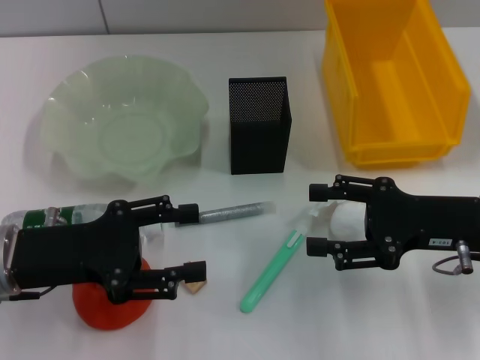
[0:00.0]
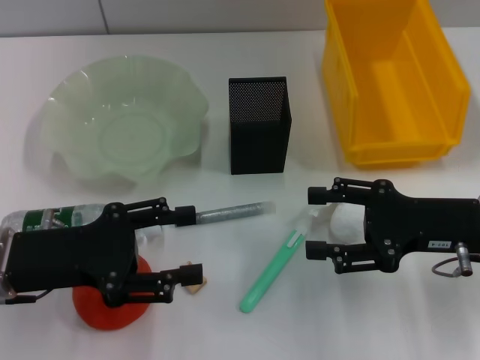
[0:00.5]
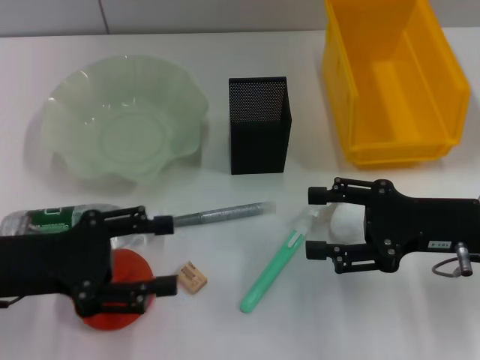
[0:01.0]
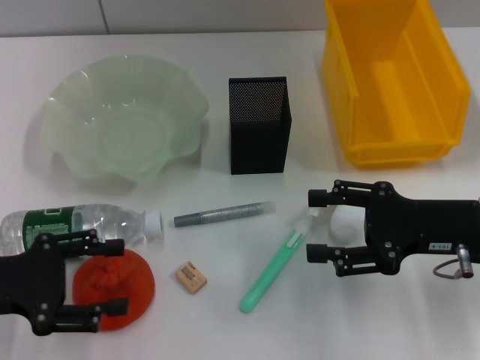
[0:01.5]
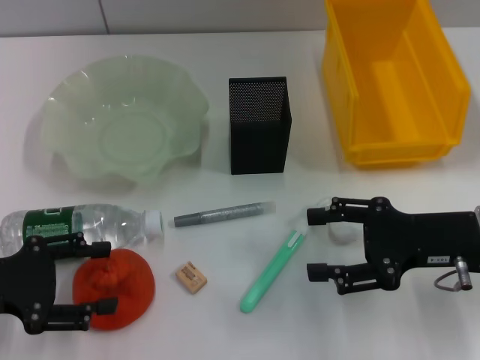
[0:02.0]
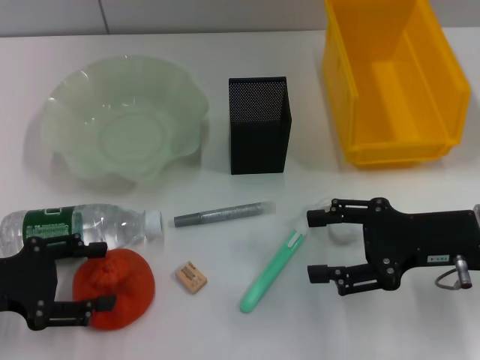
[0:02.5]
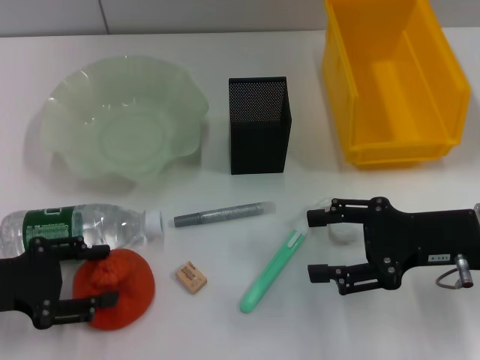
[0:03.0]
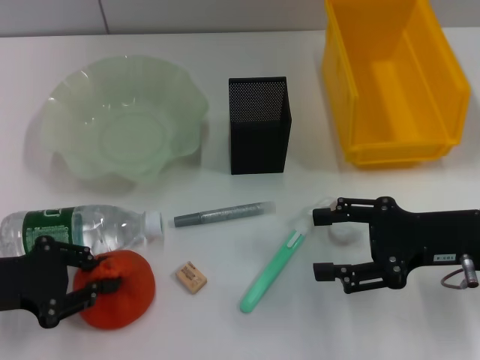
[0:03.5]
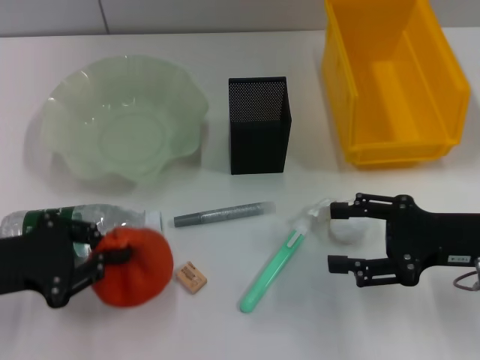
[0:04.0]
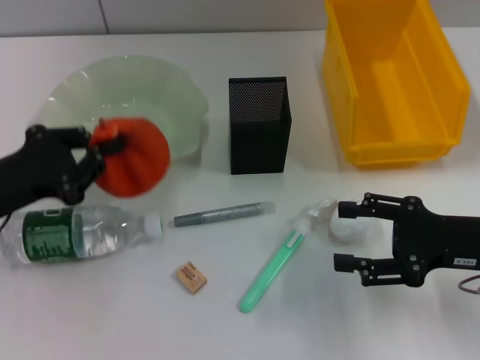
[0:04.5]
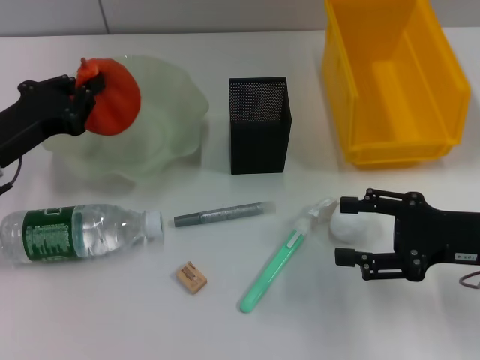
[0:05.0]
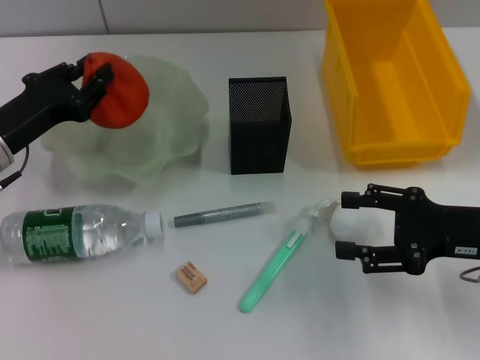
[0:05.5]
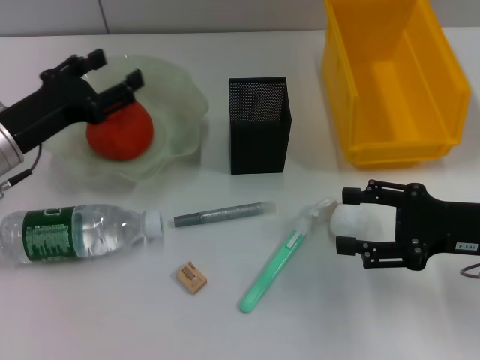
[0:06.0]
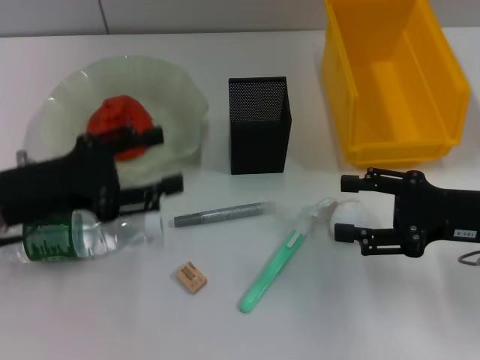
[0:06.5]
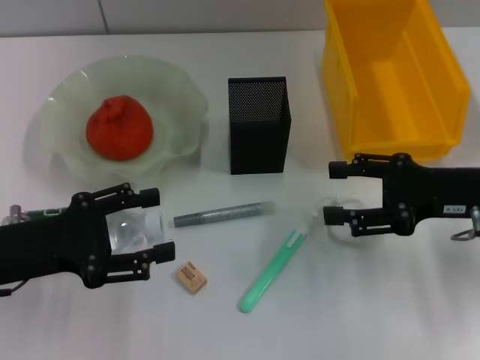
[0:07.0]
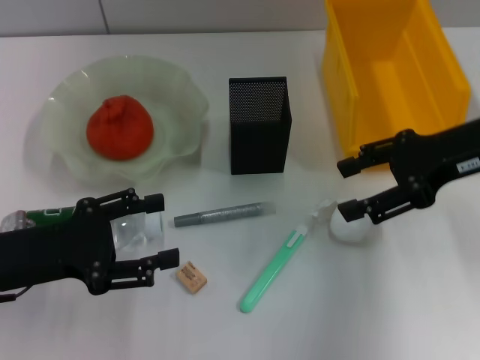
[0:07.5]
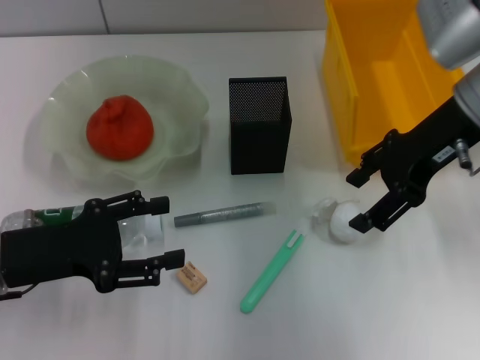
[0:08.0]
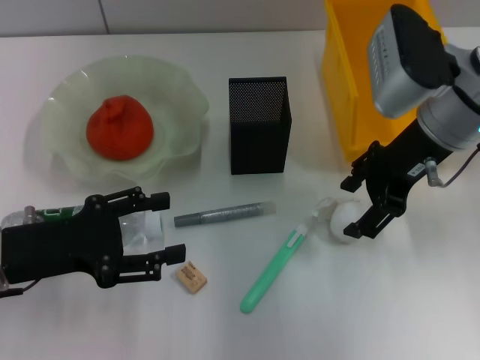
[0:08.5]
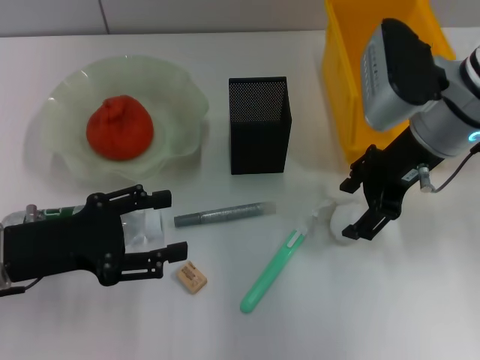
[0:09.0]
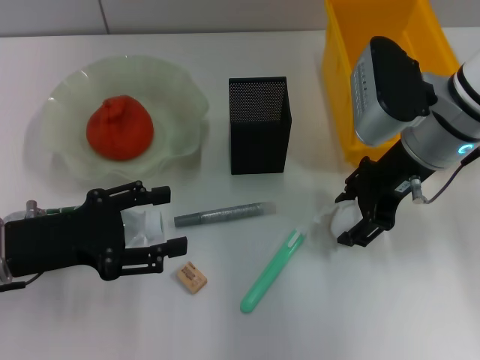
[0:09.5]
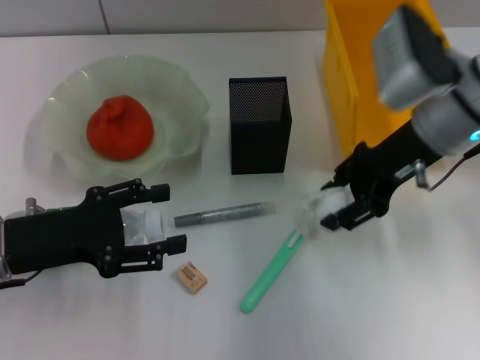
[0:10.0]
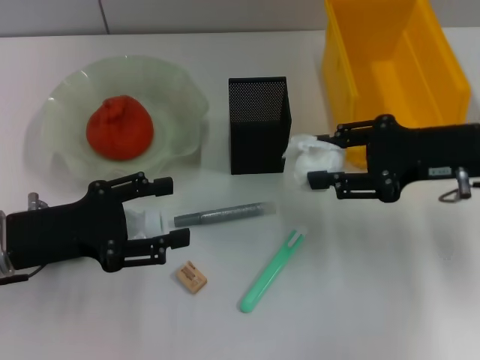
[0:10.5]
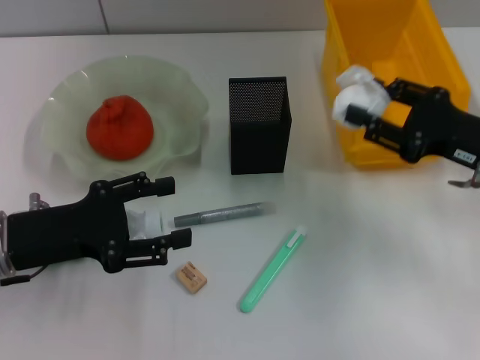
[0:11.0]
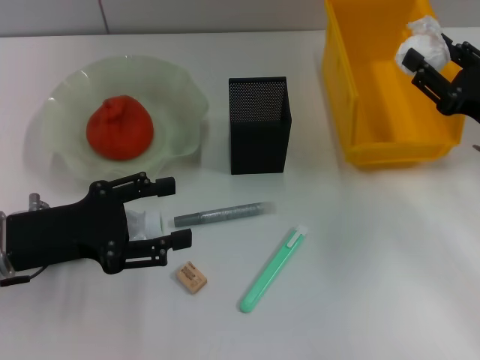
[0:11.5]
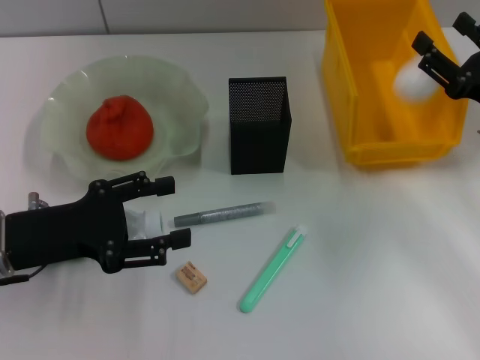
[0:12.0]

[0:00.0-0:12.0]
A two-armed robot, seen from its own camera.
Step, 0:00.0 to 0:03.5: Grab the orange with the left hand.
Step, 0:04.0 to 0:06.0: Place the orange into the fruit bowl with the left hand.
Step, 0:06.5 to 0:09.5: Grab the paper ball with the right hand.
0:00.0 to 0:02.0: The left gripper travels to the left by roughly 5 cm.
0:02.0 to 0:04.0: The left gripper closes.
0:04.0 to 0:06.0: The left gripper moves forward, roughly 10 cm, and opens its fingers.
0:06.0 to 0:08.0: The right gripper moves upward, forward and to the left, approximately 15 cm. Meanwhile the left gripper moves backward, some 10 cm, and opens its fingers.
0:08.0 to 0:10.0: The grippers make only small movements.
0:10.0 to 0:12.0: The right gripper shifts roughly 15 cm to the right, downward and backward.

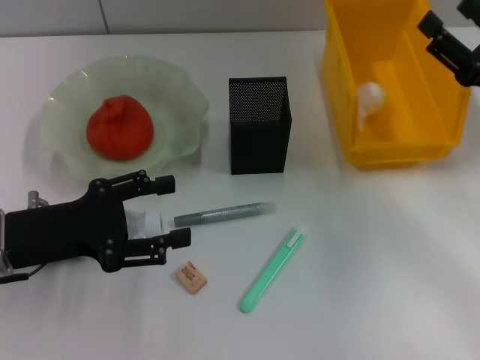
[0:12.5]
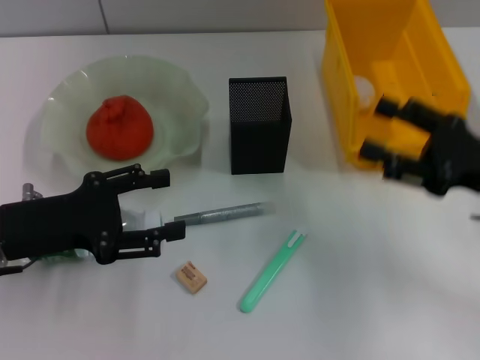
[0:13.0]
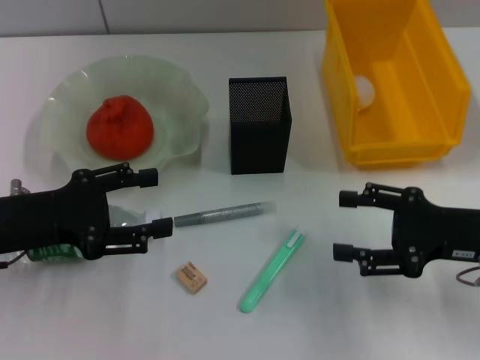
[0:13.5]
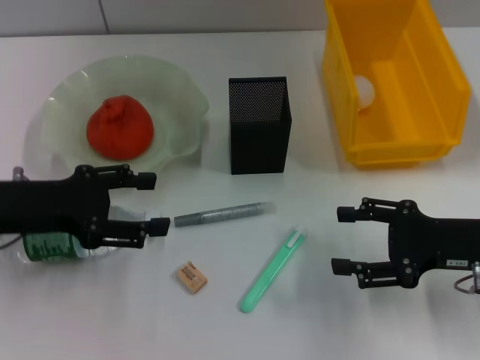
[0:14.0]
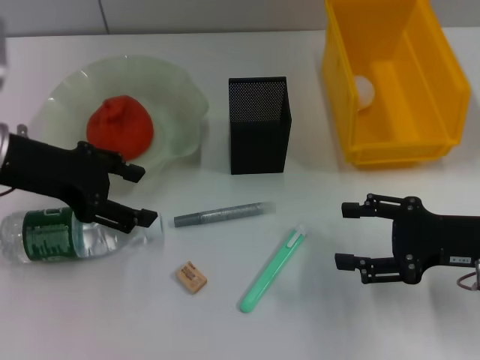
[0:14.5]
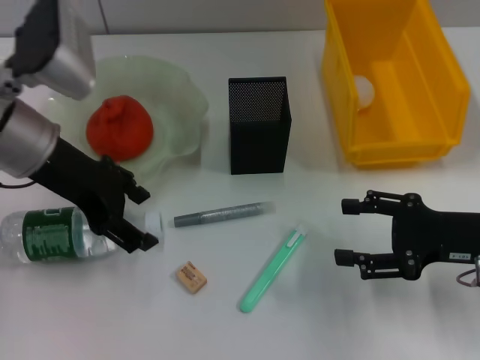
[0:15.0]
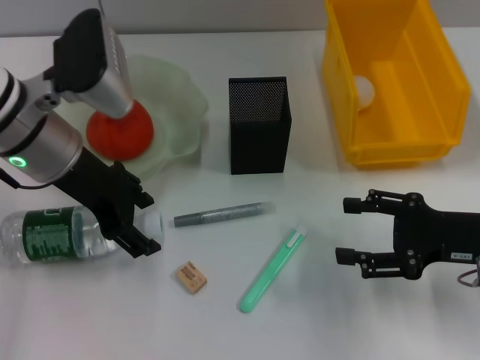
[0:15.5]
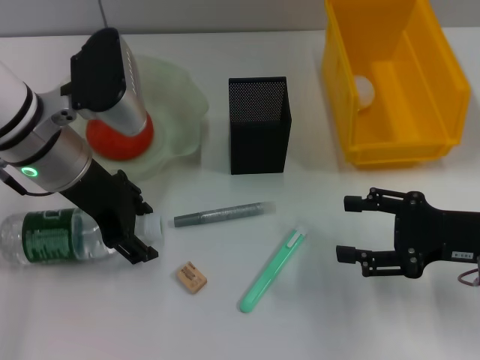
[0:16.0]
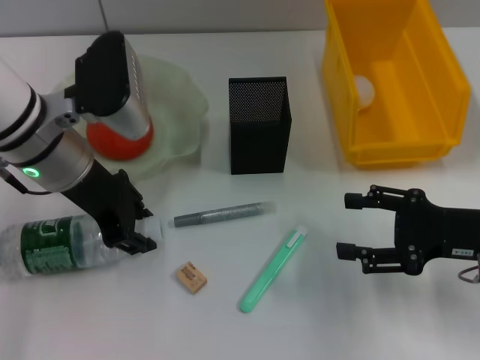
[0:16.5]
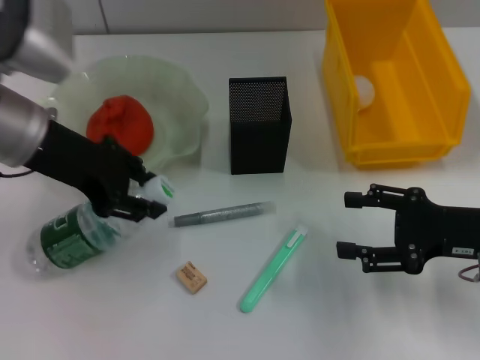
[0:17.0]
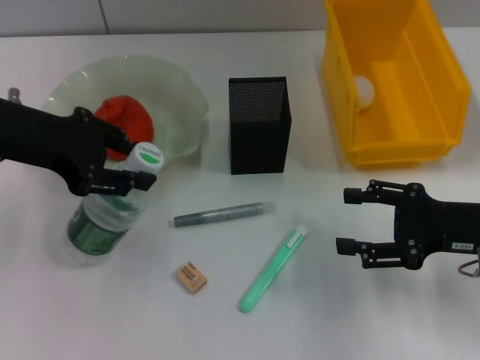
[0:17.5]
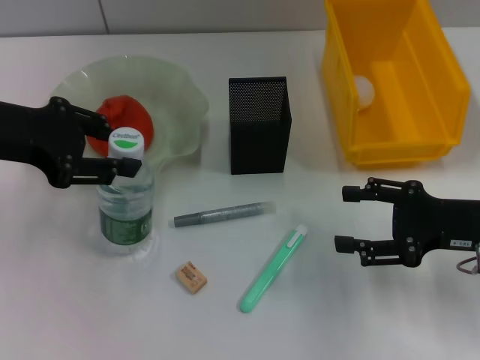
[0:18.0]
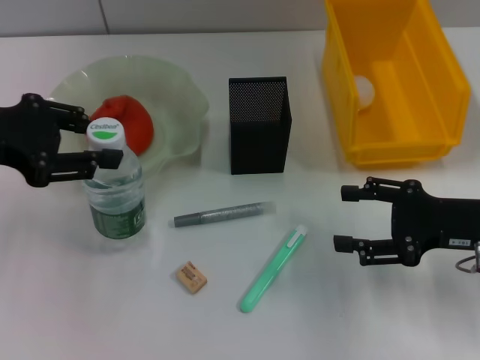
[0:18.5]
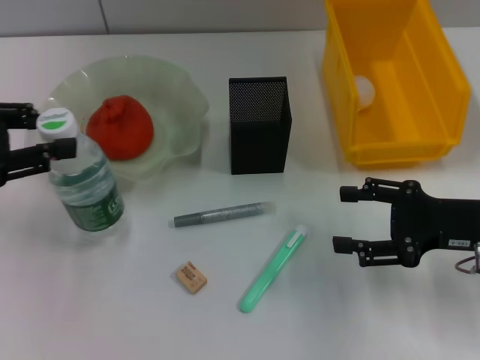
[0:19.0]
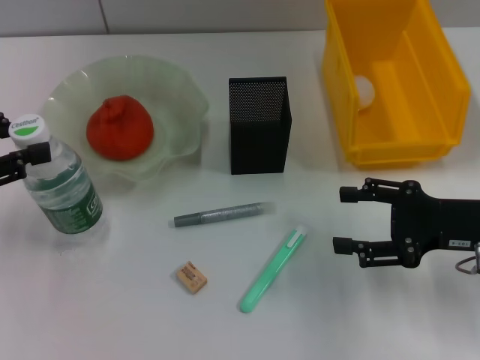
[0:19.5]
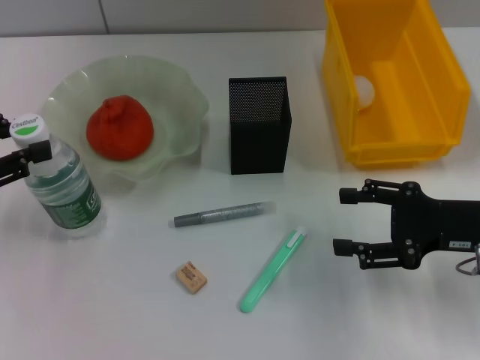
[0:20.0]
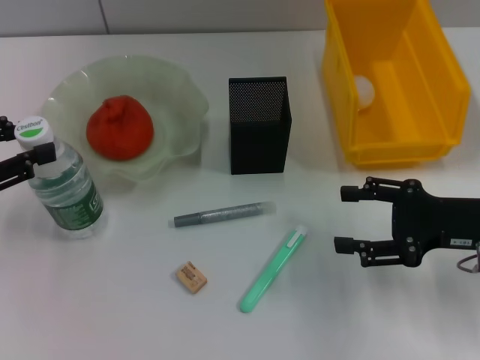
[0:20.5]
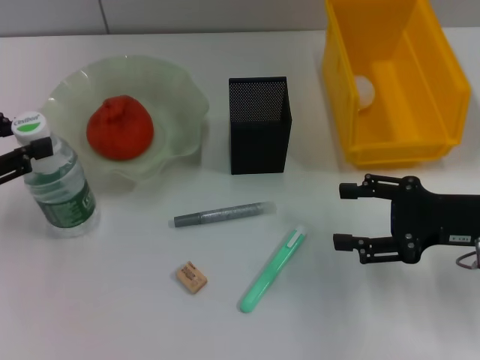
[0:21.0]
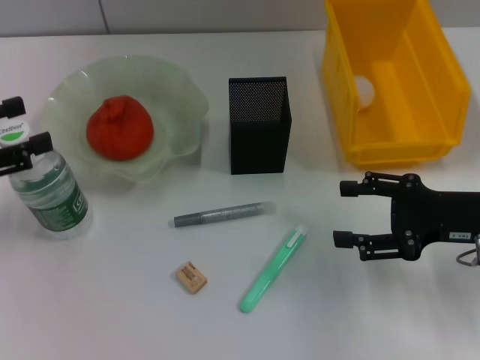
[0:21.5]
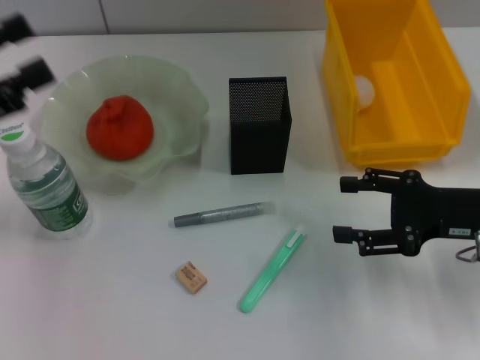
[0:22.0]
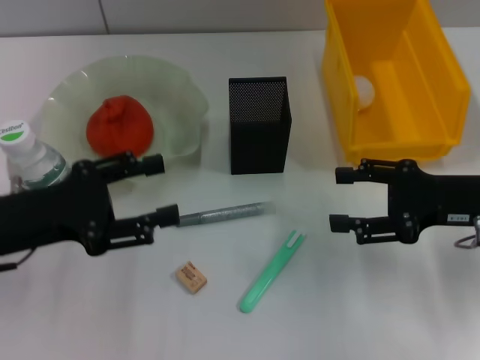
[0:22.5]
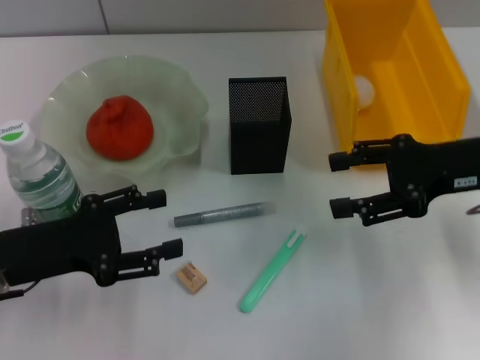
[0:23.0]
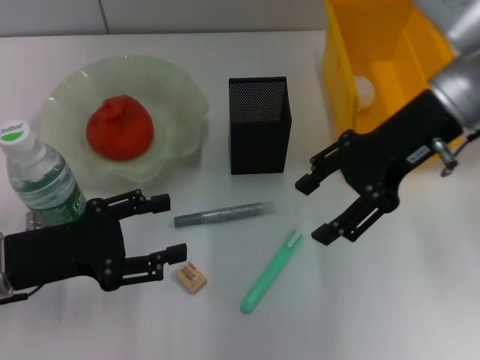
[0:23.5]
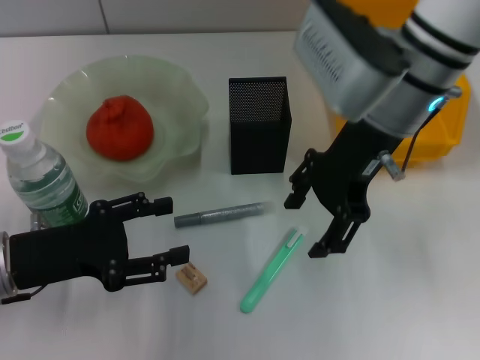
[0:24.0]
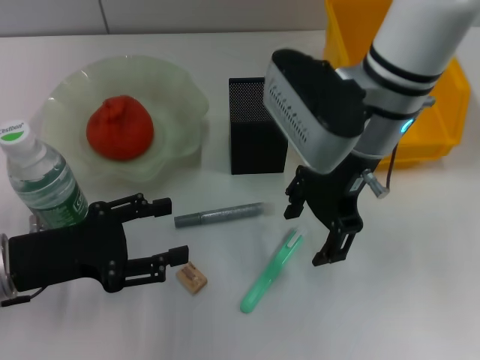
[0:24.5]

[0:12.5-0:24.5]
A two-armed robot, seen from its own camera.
Step, 0:12.5 to 0:16.5: Grab the water bottle with the left hand.
Step, 0:17.0 to 0:22.0: Place the water bottle on the table with the left hand.
0:12.5 to 0:14.5: The right gripper shifts by some 5 cm. Meanwhile the left gripper travels forward and upward by some 10 cm.
0:14.5 to 0:16.5: The left gripper travels to the right by approximately 10 cm, and closes up.
0:16.5 to 0:18.5: The left gripper is displaced to the left by roughly 10 cm.
0:18.5 to 0:20.5: The left gripper travels to the left and downward by some 10 cm.
0:20.5 to 0:22.5: The left gripper shifts approximately 10 cm to the right, and opens its fingers.
0:22.5 to 0:24.5: The right gripper goes roughly 20 cm to the left and upward.

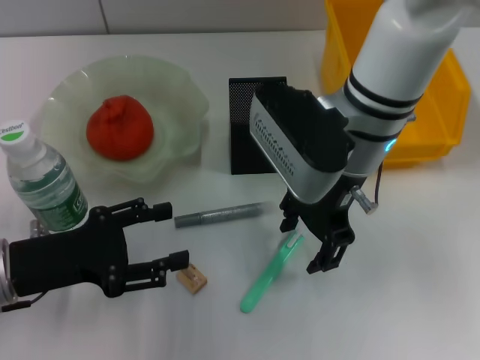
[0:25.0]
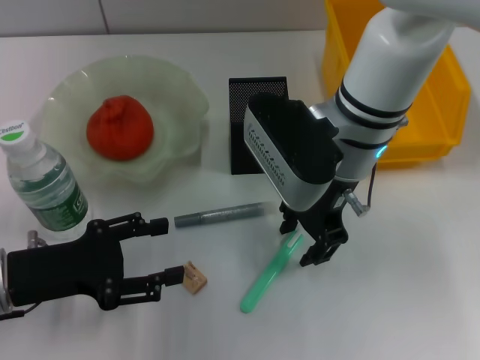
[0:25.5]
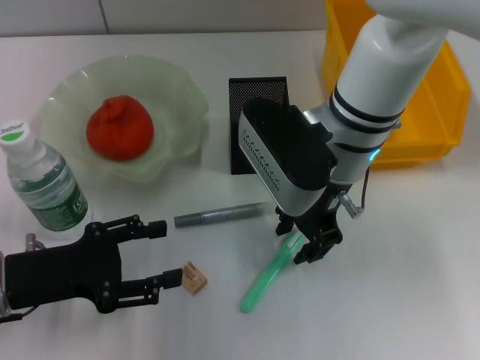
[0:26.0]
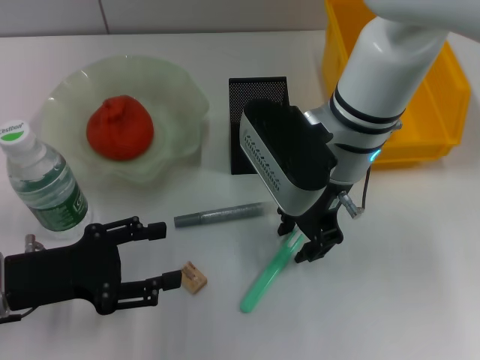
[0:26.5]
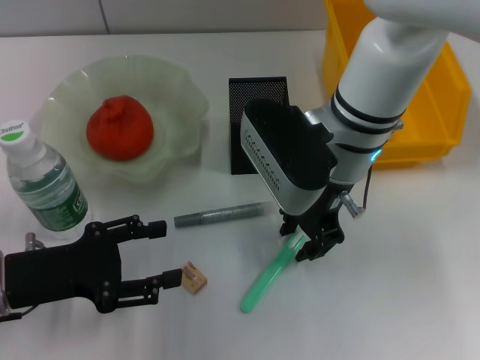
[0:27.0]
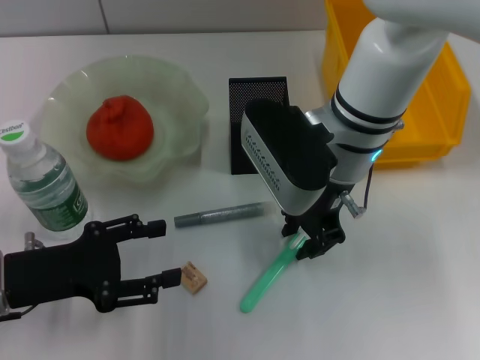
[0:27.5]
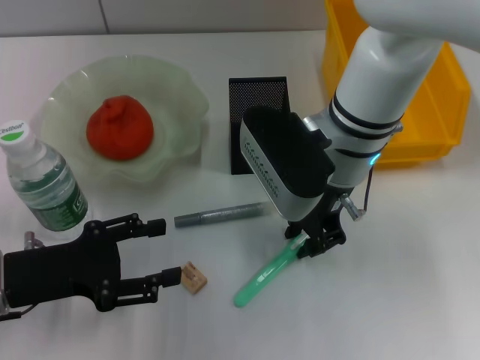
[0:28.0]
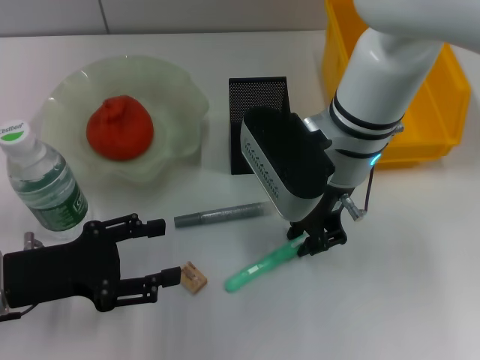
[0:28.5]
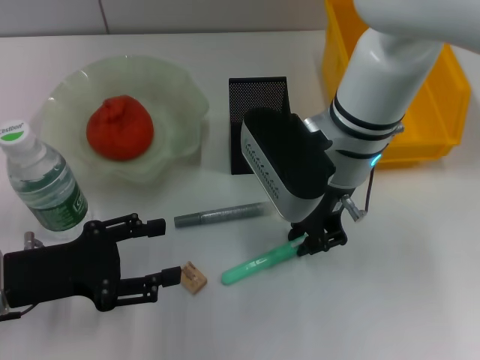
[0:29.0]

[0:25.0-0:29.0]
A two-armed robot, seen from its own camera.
Step, 0:25.0 to 0:28.0: Grab the blue utility knife with the right hand.
0:25.0 to 0:27.0: The right gripper closes its fingers.
0:27.0 to 0:29.0: The right gripper closes.
